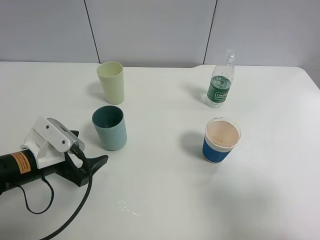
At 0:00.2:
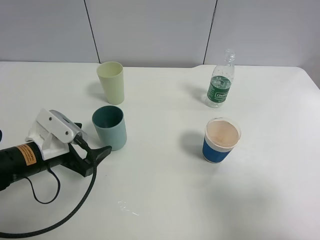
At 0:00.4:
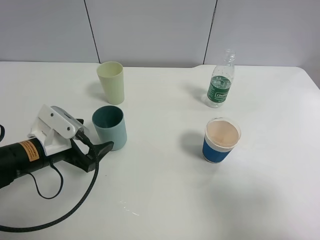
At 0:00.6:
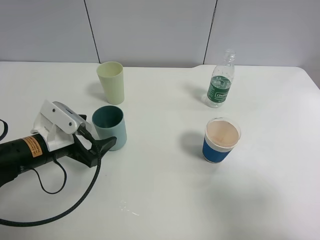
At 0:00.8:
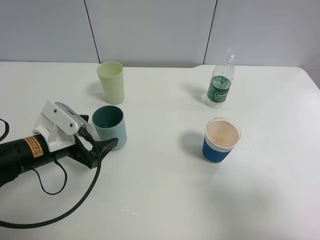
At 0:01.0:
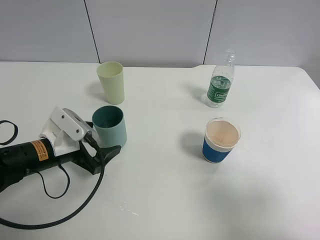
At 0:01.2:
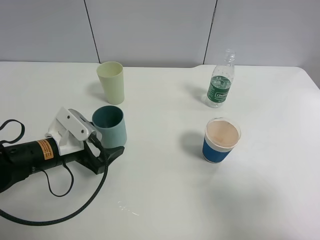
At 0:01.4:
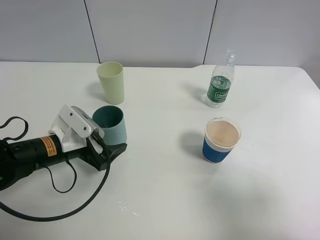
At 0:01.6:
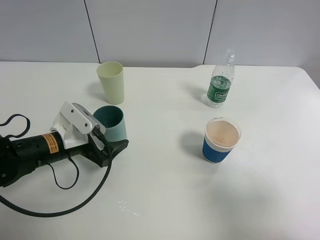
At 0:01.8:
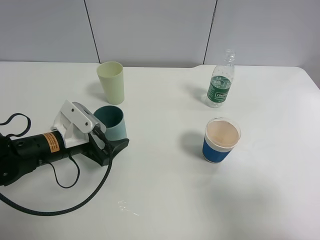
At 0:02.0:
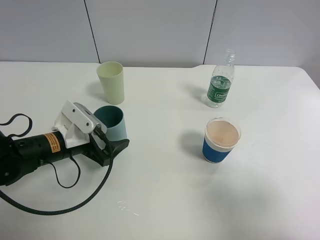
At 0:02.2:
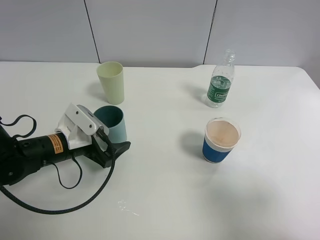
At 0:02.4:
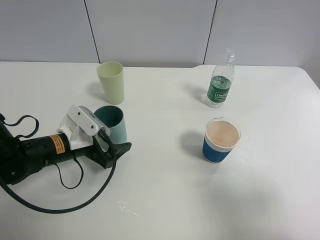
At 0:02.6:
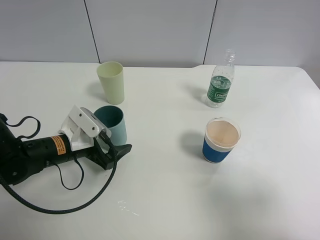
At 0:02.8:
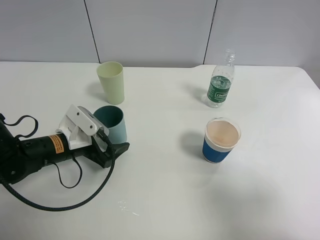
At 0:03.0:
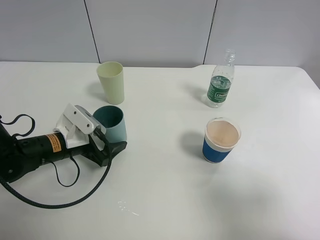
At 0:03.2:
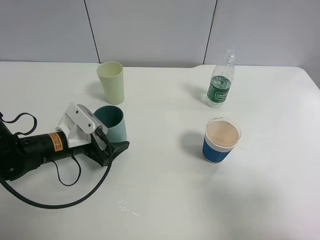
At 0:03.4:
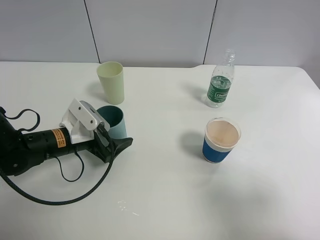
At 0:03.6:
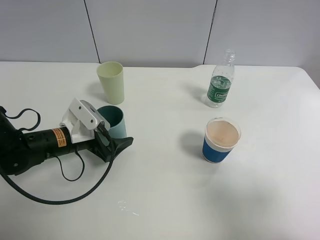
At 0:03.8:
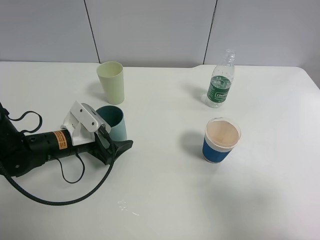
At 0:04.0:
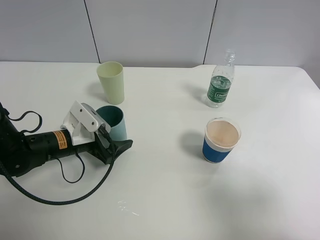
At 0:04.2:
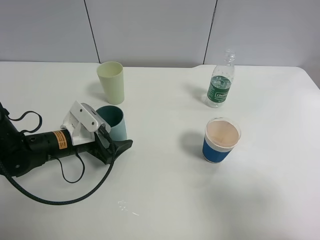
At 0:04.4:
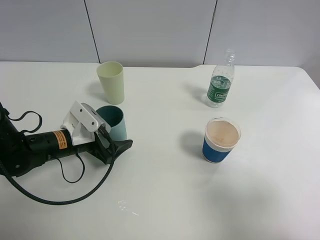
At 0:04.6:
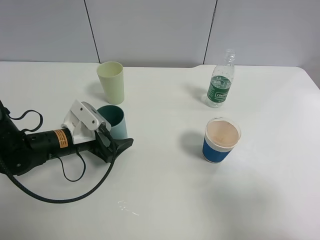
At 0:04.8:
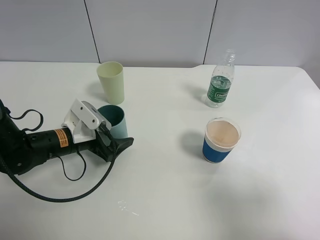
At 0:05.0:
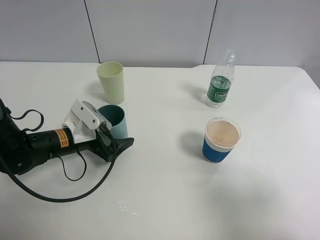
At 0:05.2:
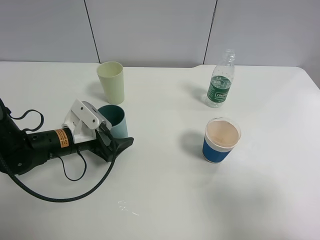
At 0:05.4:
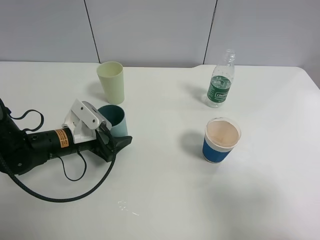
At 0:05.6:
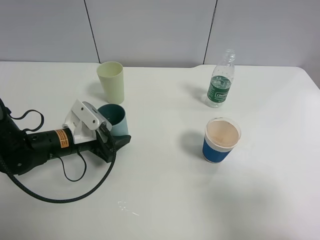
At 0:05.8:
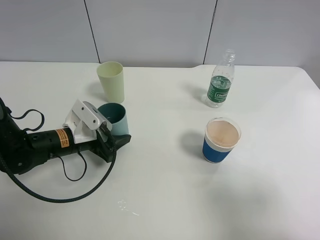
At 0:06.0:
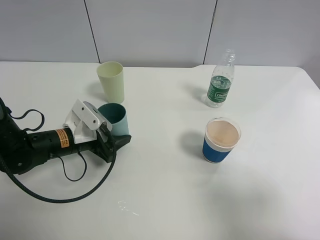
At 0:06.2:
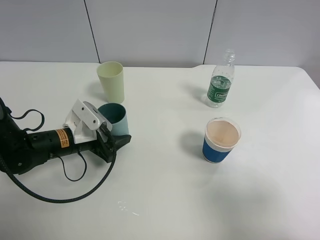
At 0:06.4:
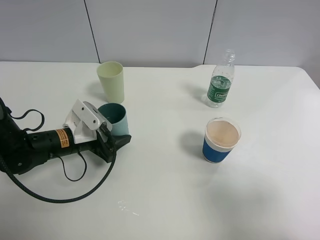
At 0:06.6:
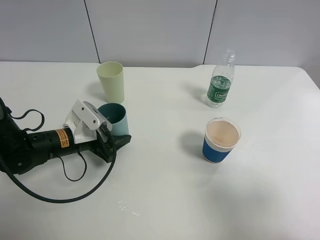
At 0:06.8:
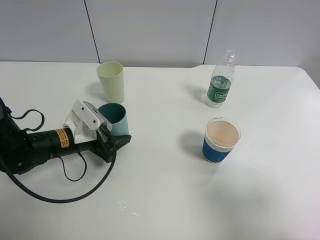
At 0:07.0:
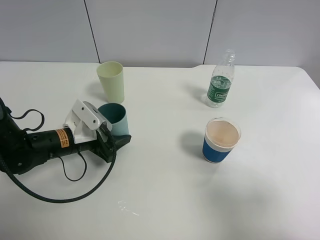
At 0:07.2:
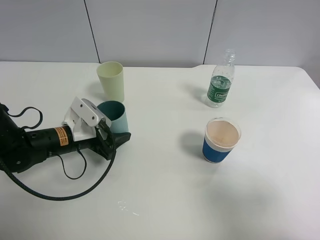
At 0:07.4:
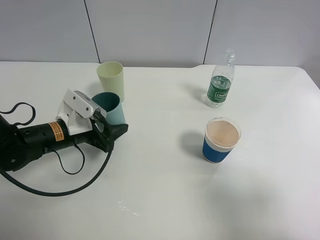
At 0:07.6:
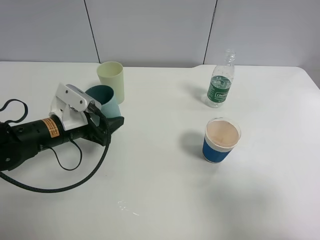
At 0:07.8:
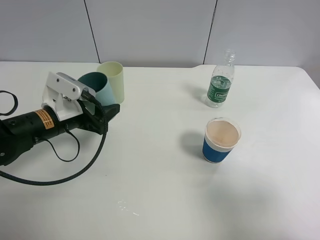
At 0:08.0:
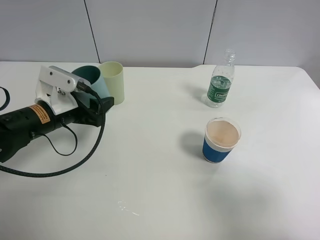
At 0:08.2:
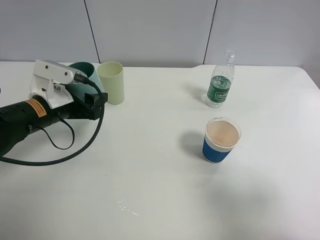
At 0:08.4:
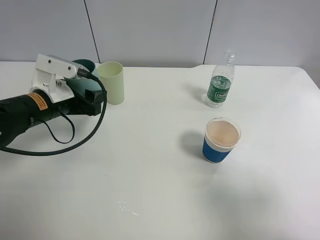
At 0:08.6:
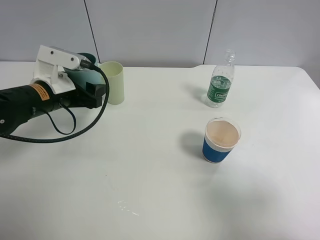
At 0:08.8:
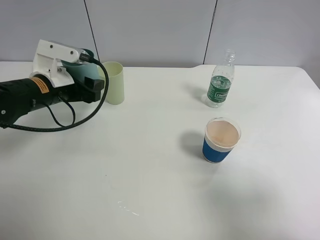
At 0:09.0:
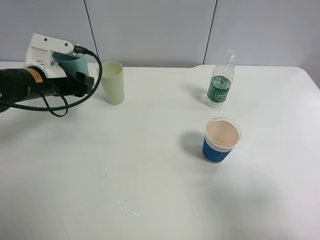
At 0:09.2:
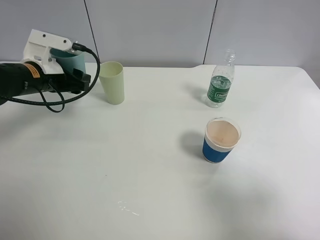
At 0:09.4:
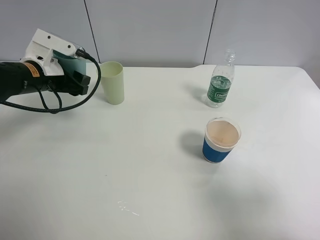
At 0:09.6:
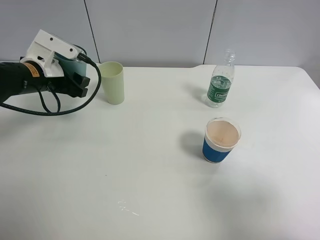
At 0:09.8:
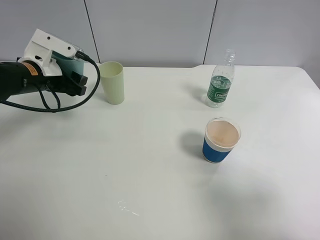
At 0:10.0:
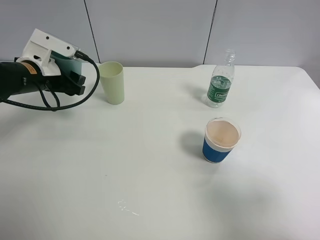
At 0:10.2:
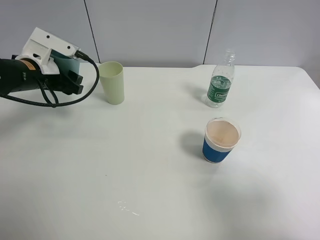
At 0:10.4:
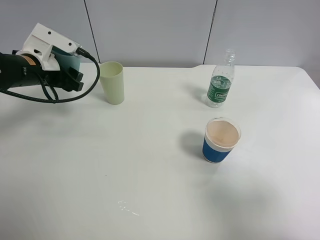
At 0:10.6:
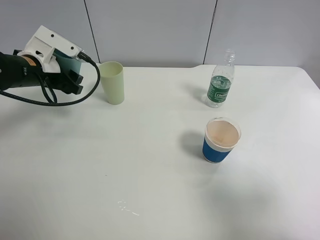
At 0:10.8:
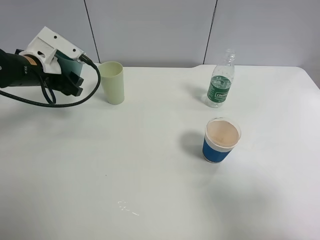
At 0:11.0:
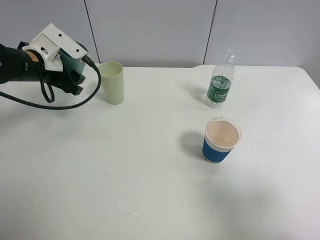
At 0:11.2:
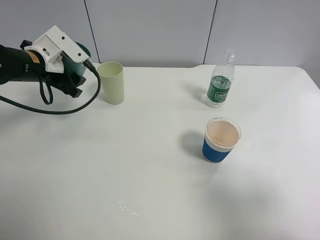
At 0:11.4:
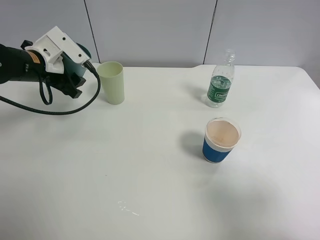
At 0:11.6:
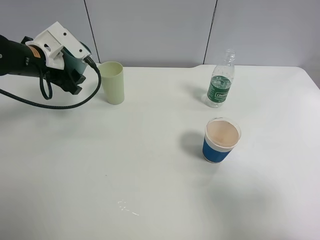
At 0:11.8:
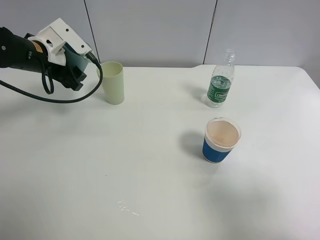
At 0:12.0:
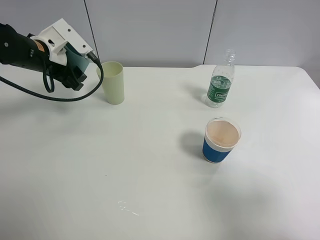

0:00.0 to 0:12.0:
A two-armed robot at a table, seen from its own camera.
Task of the whole recording: use a clamp to hold the bottle of the drink, pour the beverage into a random cup, then clamp the cup containing the drink and pour the drink into another random cup.
Step, 0:00.0 to 0:07.2: Pick up the blue plastic cup bottle with left gripper.
0:00.0 to 0:01.6: The left gripper moves about 5 cm.
0:01.6 to 0:04.4: The grippers stay close to where they were, moving slightly.
0:04.4 to 0:06.0: The left gripper closes its fingers.
0:06.0 to 0:07.6: The grippers stay close to where they were, moving slightly.
0:07.6 to 0:09.0: The left gripper is displaced forward and upward by some 10 cm.
0:09.0 to 0:10.4: The grippers move only a little.
0:10.4 to 0:12.0: The grippers make only small movements.

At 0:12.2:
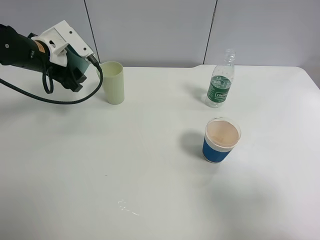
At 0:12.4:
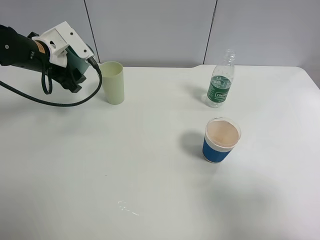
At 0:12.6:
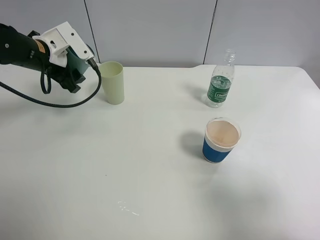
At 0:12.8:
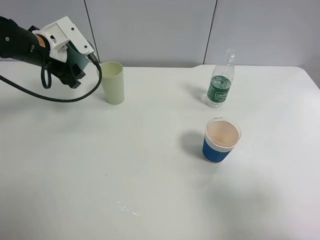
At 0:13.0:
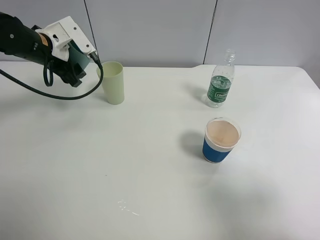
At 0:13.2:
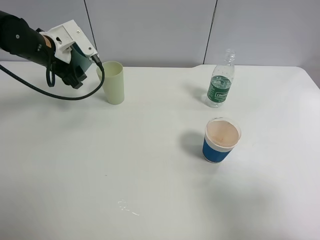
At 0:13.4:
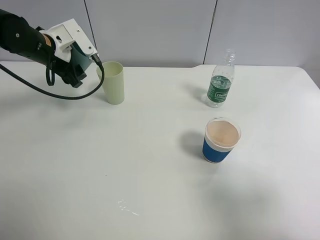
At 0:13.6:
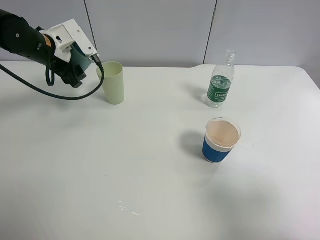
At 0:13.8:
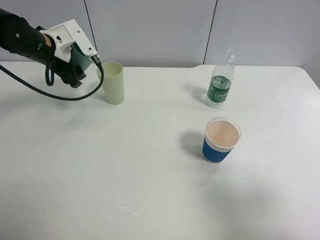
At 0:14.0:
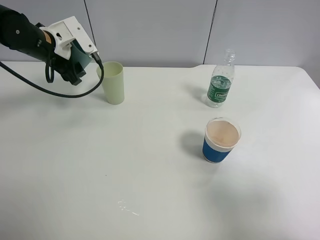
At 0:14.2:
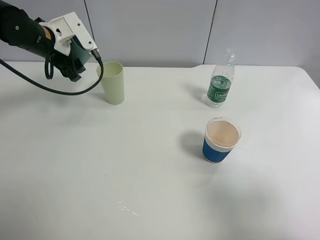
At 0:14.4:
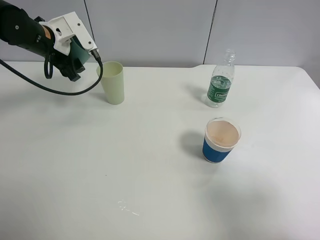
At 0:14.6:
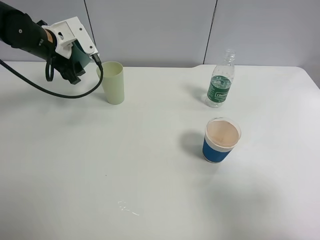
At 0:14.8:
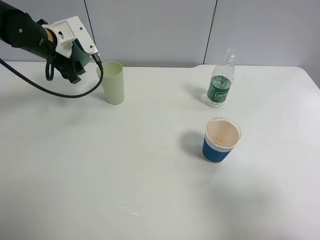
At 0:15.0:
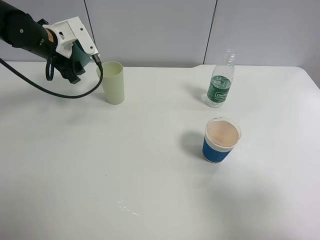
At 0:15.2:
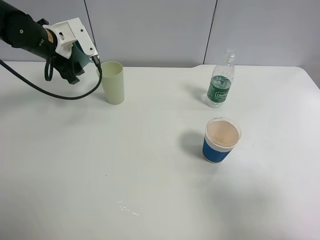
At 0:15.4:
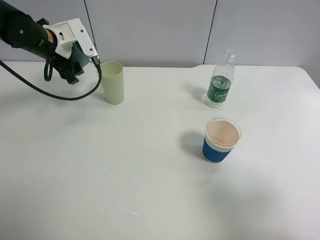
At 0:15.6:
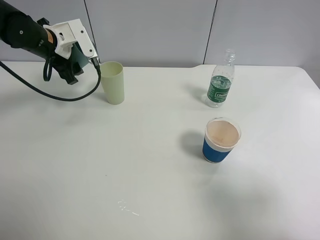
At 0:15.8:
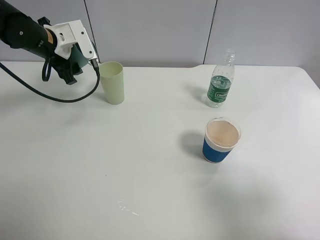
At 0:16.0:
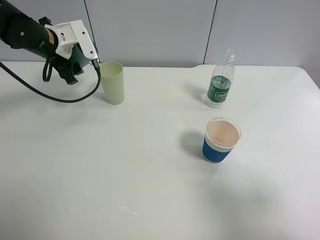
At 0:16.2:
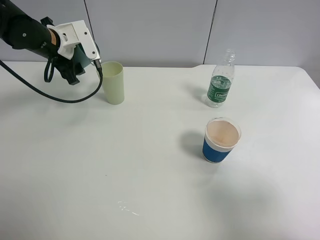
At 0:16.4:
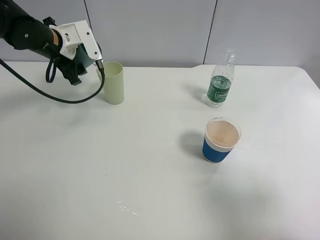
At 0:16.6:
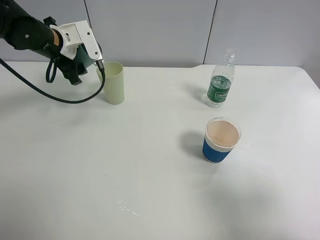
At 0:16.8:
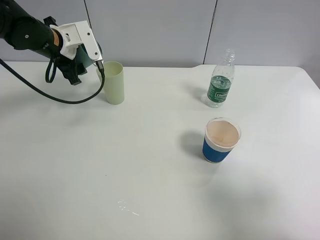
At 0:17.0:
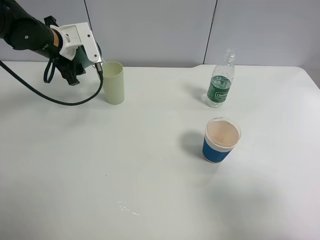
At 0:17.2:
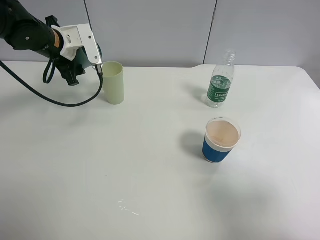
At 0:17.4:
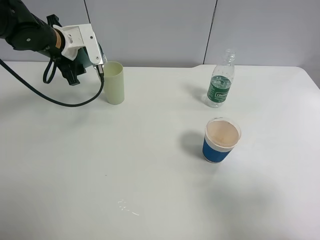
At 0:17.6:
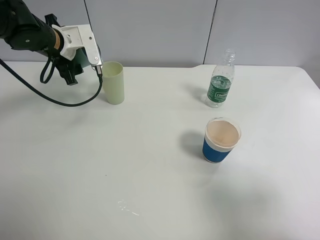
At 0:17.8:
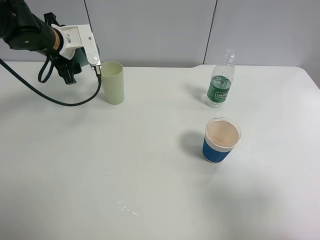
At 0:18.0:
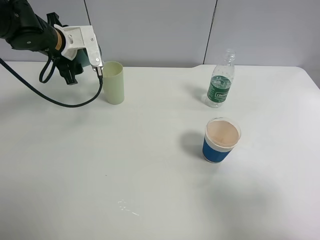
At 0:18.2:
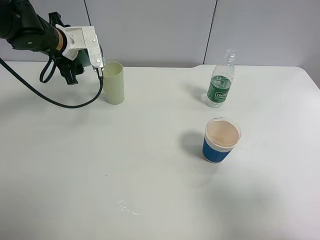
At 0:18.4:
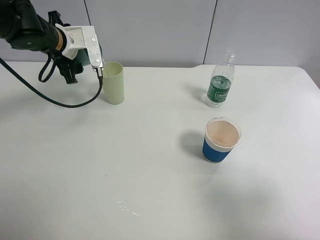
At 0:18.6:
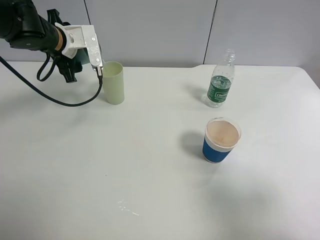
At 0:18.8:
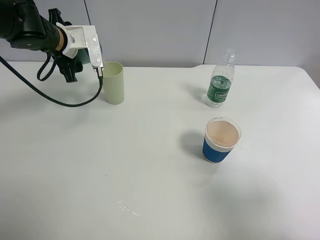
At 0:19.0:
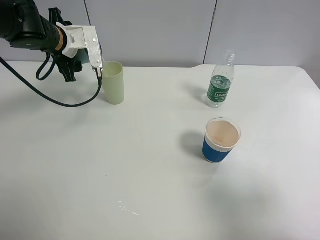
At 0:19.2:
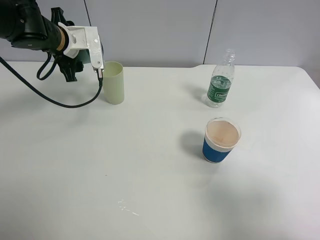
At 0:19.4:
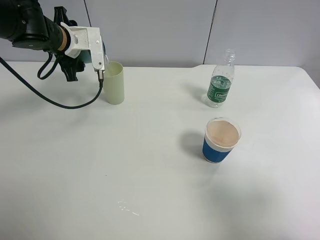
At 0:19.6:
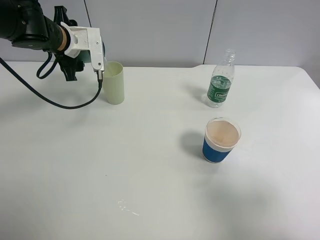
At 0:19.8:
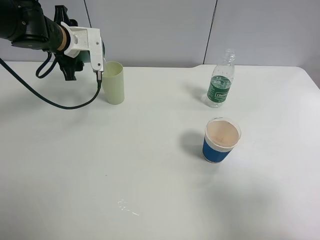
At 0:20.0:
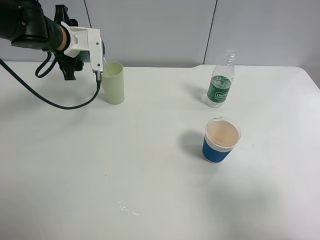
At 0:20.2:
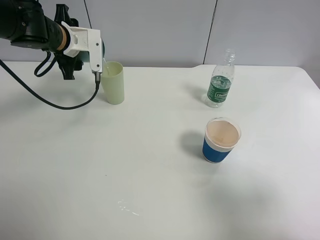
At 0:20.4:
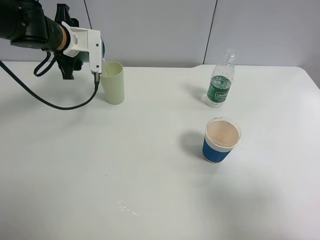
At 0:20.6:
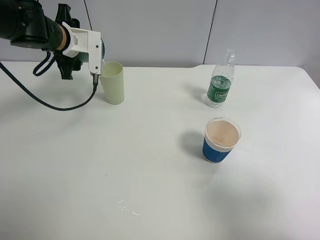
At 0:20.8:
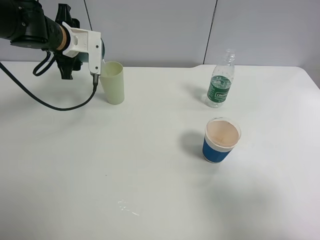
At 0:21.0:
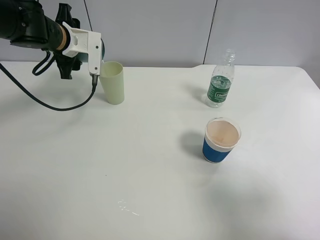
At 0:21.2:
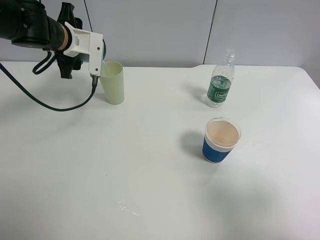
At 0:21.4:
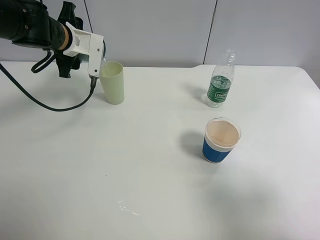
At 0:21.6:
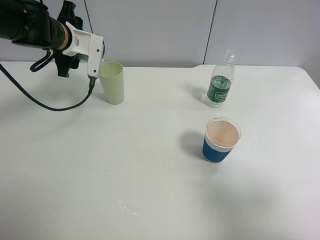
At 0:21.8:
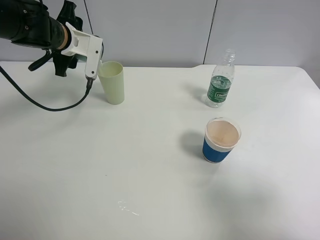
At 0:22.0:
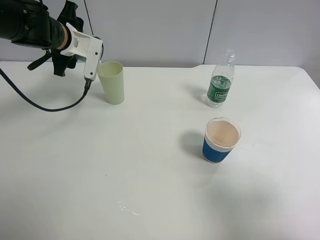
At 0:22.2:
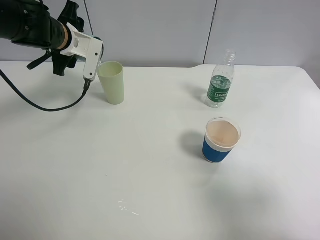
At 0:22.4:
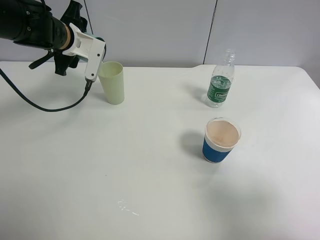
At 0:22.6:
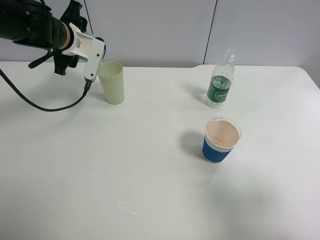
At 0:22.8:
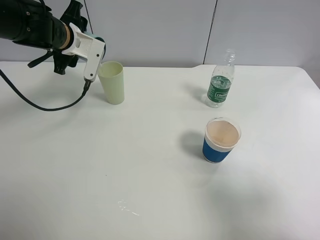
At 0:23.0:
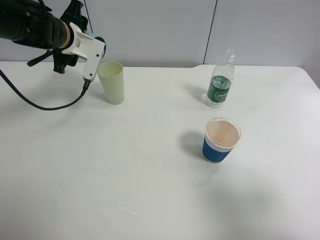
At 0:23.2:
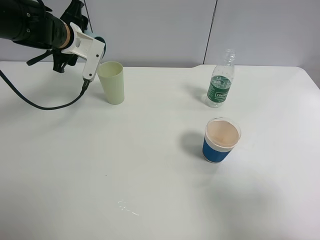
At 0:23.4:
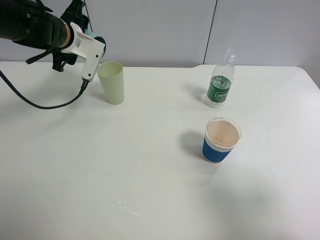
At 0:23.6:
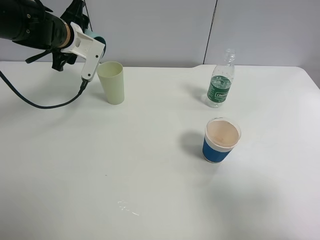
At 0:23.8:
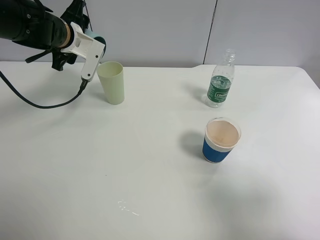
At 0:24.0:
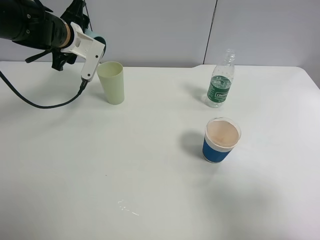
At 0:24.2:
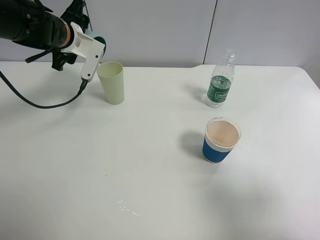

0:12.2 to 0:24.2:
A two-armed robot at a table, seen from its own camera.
Task of the whole recording: use a clamp to hold the bottle of the drink, pour the beverage into a random cup, then clamp the cup containing the drink and pour the drink into another random cup.
0:12.2 to 0:16.6: The grippers stay close to where they were, moving slightly.
0:16.6 to 0:18.2: There are only small adjustments of the grippers.
0:18.2 to 0:19.8: The grippers move only a little.
0:19.8 to 0:21.2: There are only small adjustments of the grippers.
0:21.2 to 0:22.6: The grippers move only a little.
0:22.6 to 0:24.2: The grippers move only a little.
